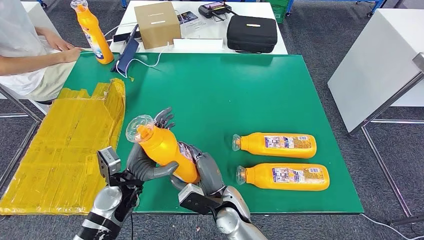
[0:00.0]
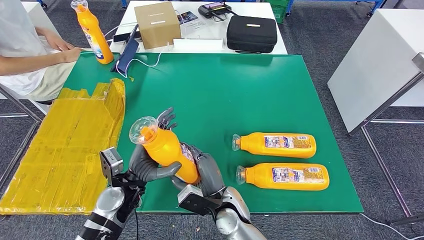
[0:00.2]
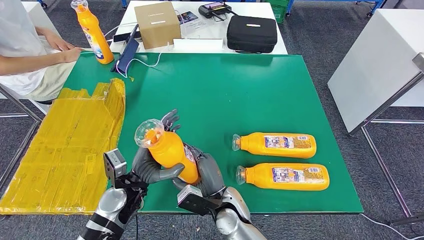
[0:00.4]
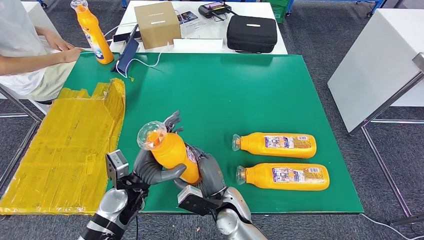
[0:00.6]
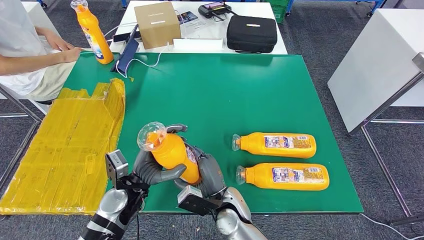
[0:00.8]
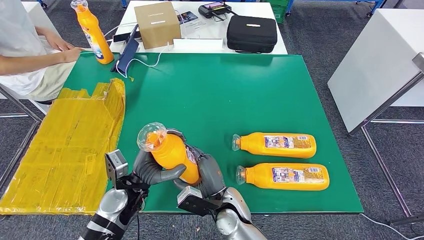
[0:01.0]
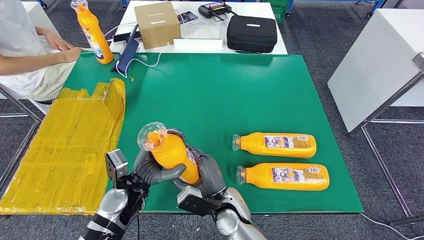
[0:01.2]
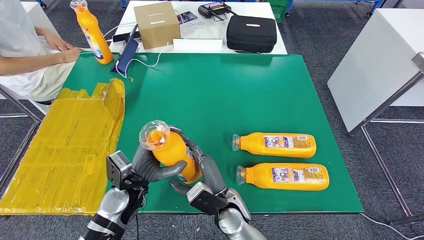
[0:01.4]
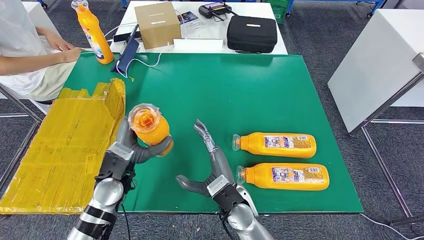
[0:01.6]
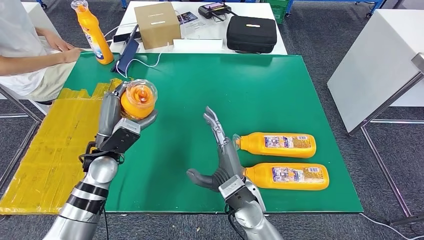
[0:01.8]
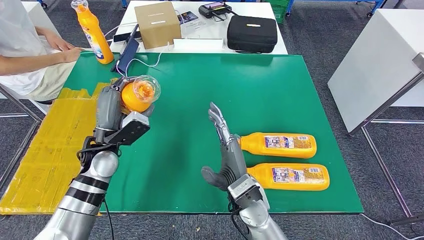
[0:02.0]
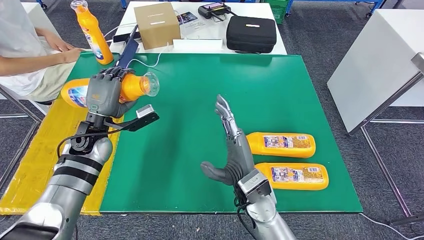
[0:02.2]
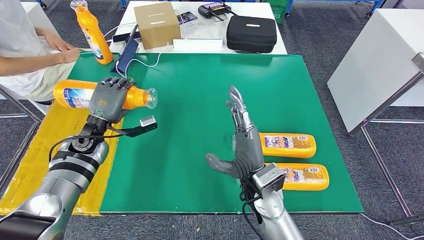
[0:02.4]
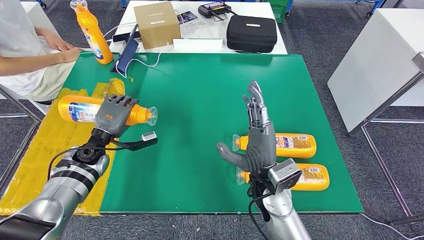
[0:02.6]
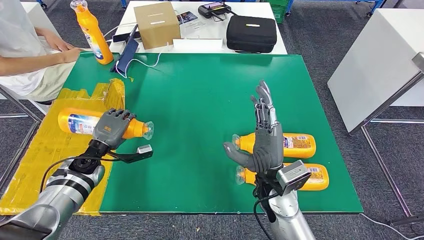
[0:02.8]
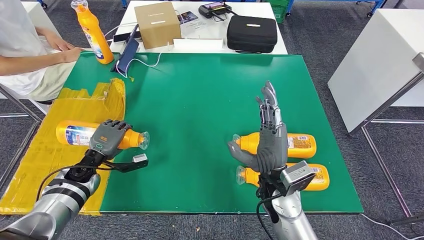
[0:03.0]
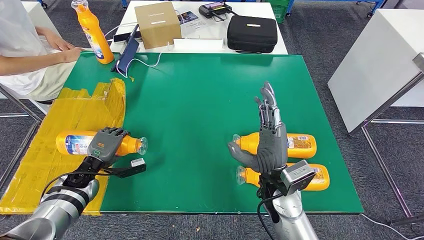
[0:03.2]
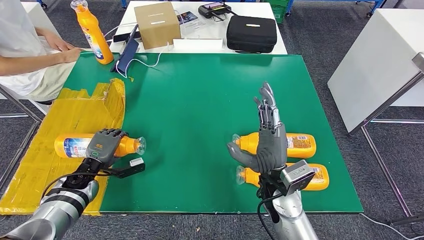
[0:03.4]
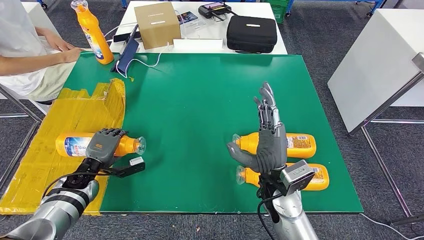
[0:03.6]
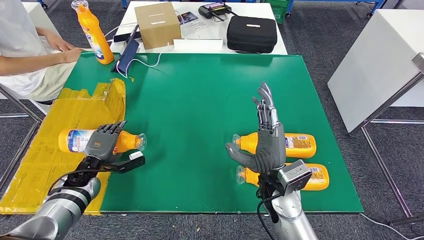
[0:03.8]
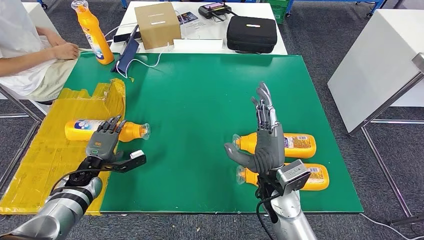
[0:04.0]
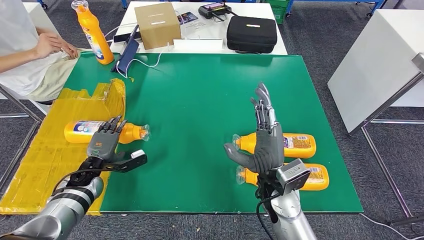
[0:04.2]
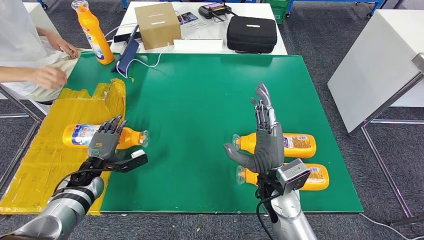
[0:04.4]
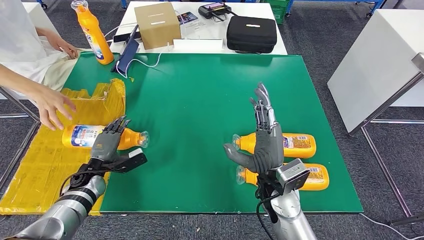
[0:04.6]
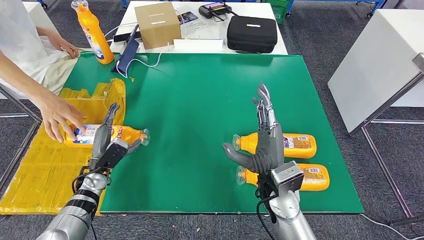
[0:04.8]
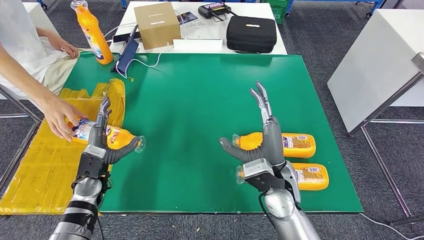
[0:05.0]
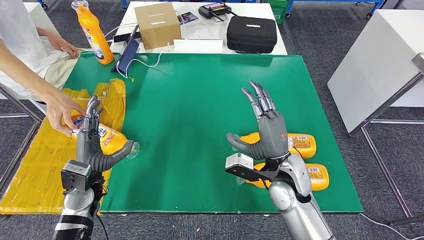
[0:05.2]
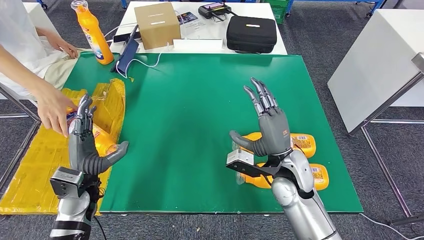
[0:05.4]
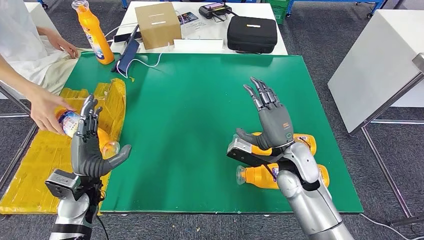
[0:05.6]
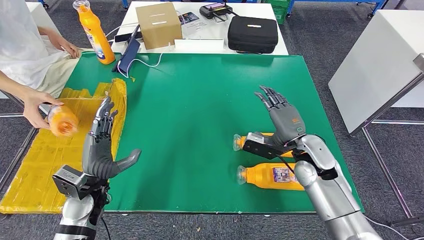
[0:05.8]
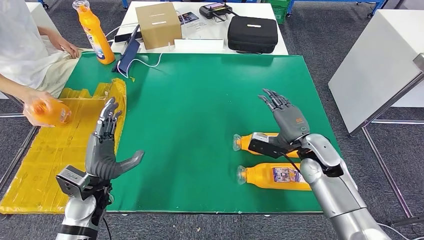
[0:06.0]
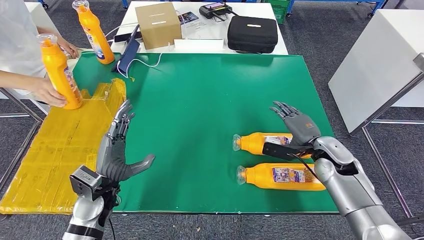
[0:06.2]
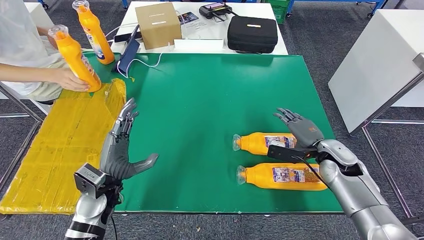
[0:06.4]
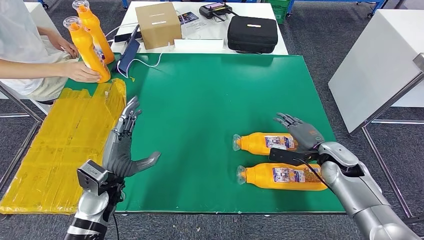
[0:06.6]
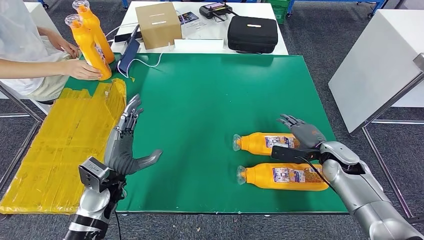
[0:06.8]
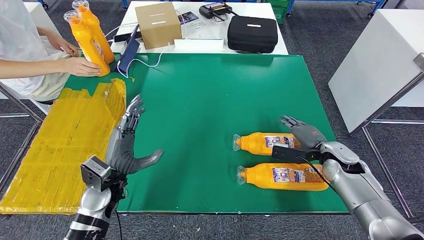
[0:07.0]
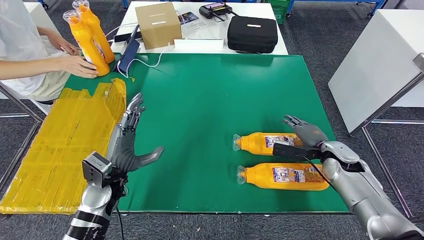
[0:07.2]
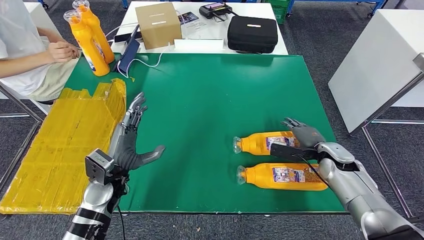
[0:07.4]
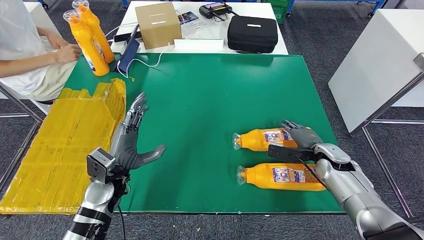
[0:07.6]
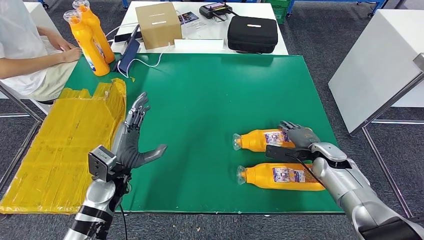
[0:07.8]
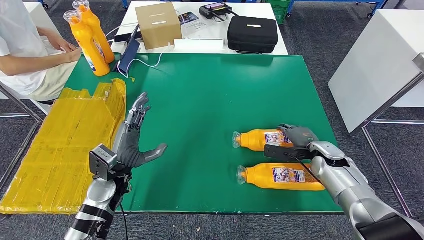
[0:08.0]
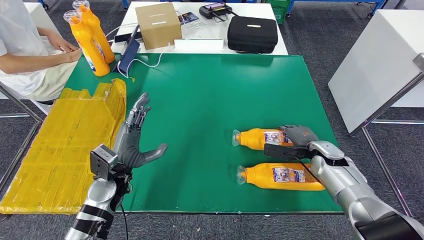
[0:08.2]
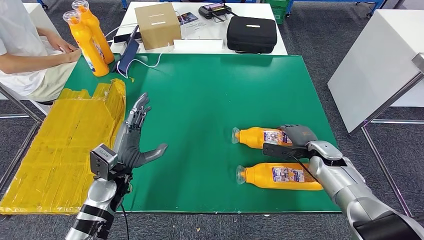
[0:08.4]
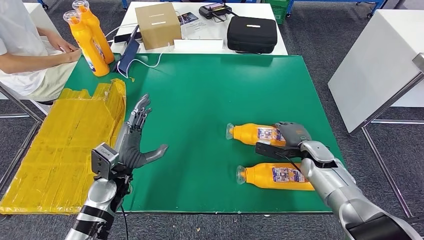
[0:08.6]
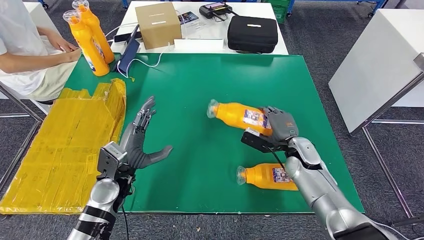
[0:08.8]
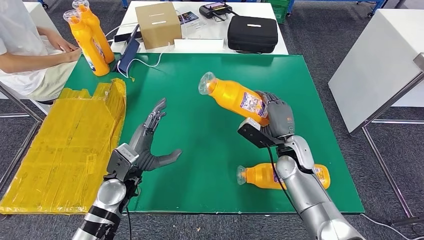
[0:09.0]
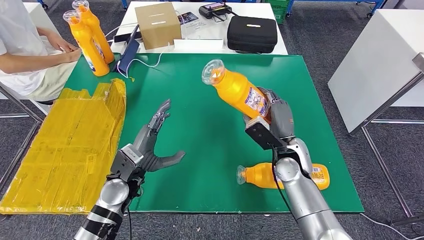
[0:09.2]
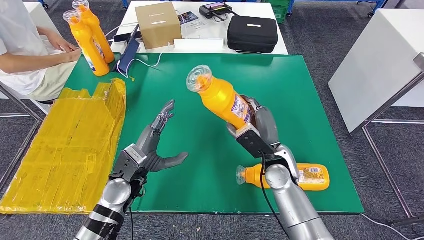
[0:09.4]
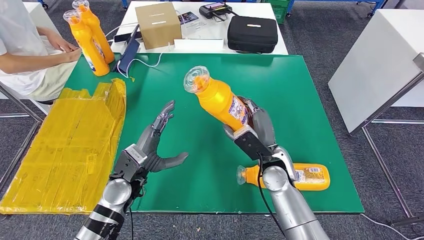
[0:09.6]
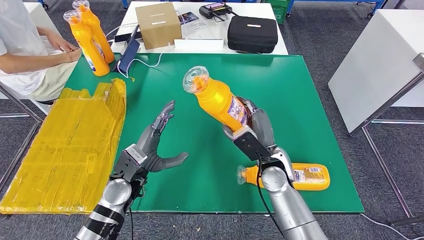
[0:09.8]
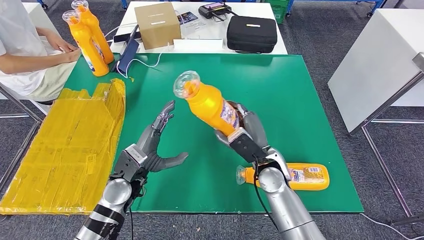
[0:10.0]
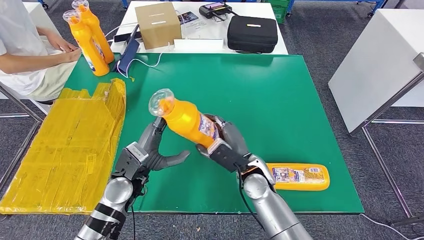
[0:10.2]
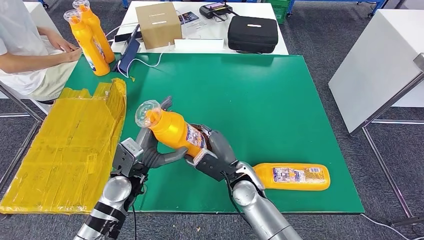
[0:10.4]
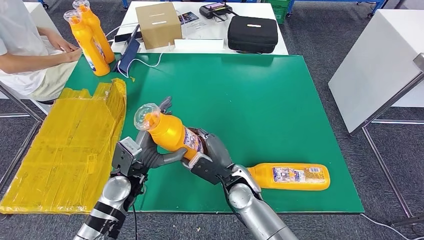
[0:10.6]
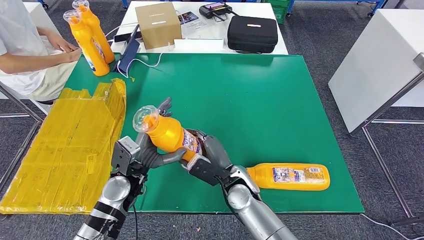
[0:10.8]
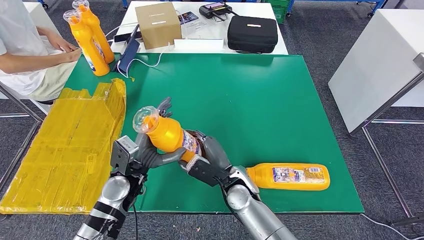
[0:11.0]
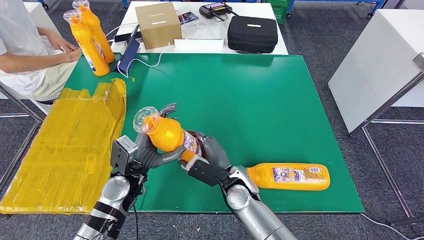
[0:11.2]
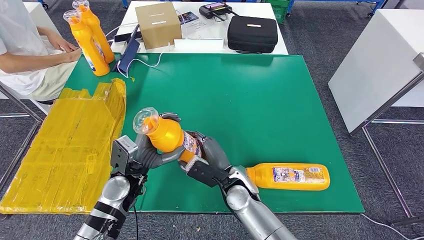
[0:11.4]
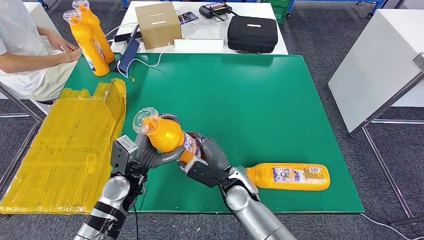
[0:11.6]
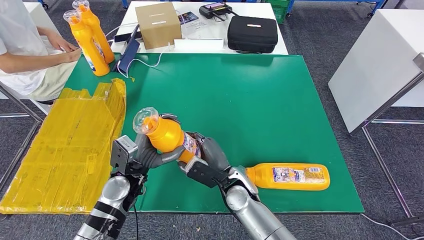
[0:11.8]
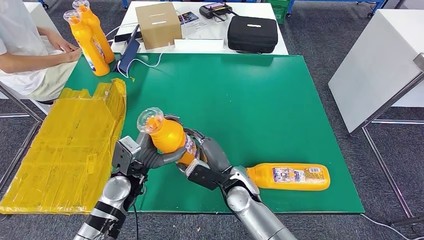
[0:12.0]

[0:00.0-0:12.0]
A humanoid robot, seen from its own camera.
Step, 0:01.2 to 0:04.8: Flip the fast-moving consumer goods bottle to the front side.
Step, 0:05.0 to 0:11.8: Pick up the fast-moving consumer goods bottle from the table.
0:01.6 to 0:03.0: The left hand travels to the left, downward and forward by approximately 15 cm. Meanwhile the right hand is displaced to the right and upward by some 10 cm.
0:03.0 to 0:04.4: The hands make only small movements.
0:07.6 to 0:09.0: The right hand moves to the left, approximately 15 cm.
0:09.0 to 0:10.4: The right hand goes roughly 15 cm to the left and backward.
0:10.4 to 0:12.0: The hands stay close to where they were, moving slightly.

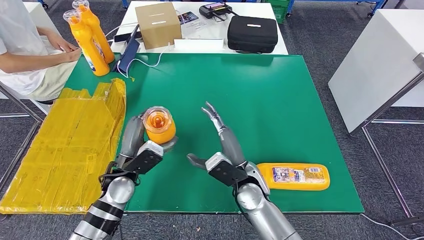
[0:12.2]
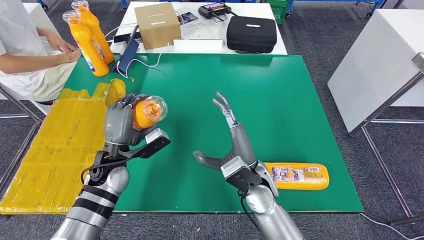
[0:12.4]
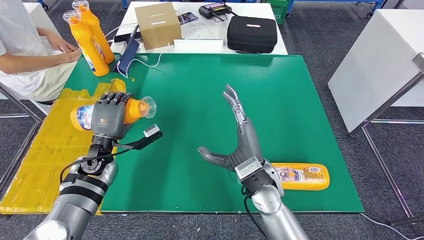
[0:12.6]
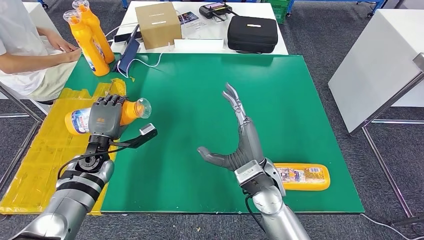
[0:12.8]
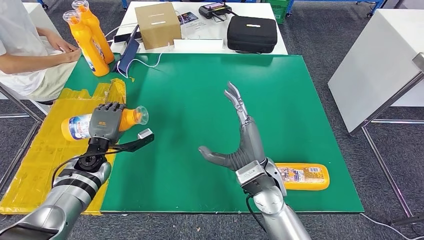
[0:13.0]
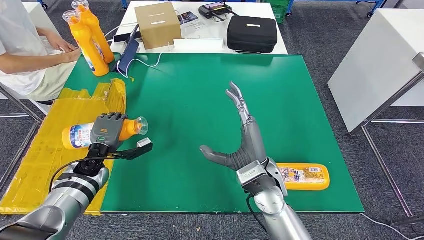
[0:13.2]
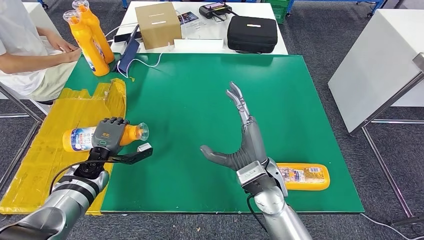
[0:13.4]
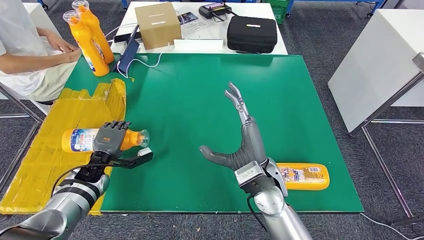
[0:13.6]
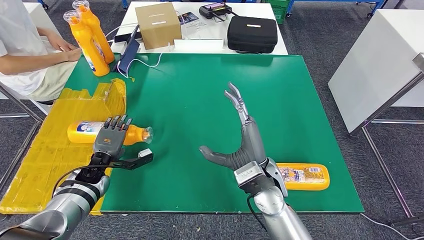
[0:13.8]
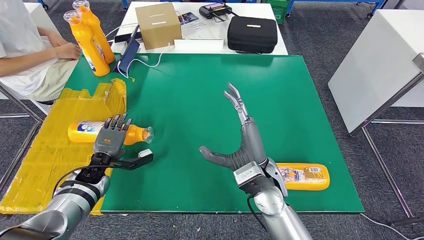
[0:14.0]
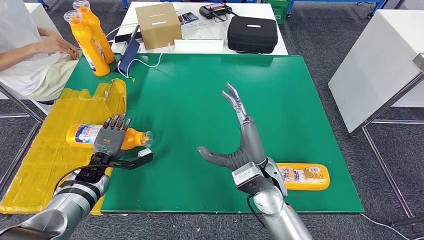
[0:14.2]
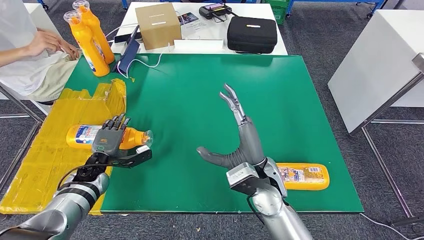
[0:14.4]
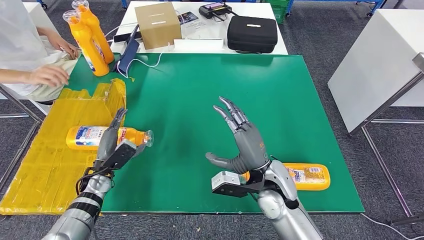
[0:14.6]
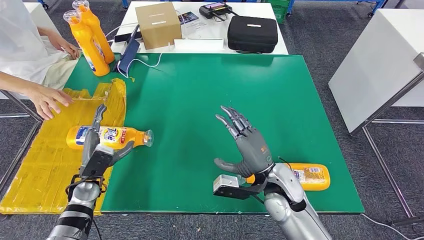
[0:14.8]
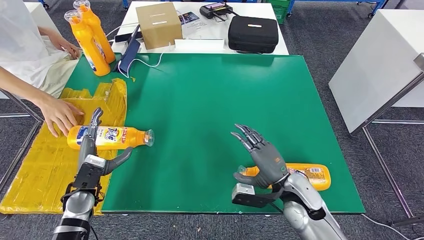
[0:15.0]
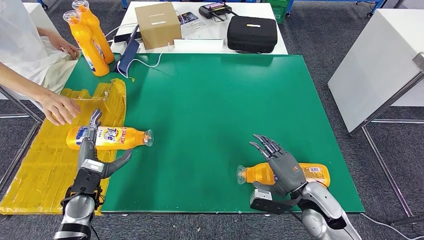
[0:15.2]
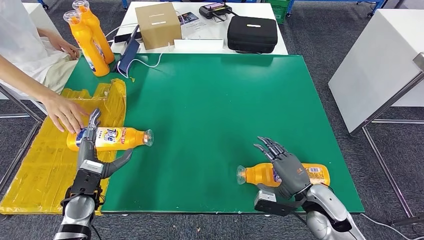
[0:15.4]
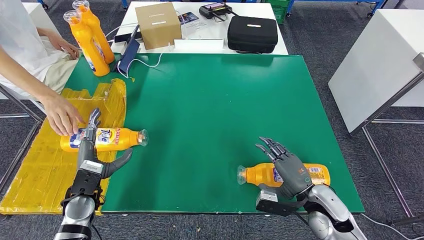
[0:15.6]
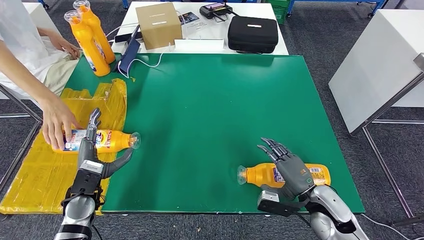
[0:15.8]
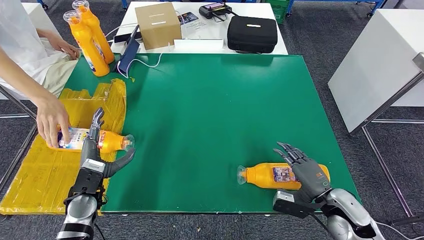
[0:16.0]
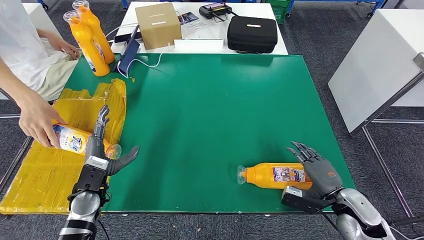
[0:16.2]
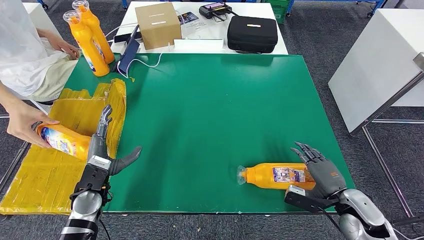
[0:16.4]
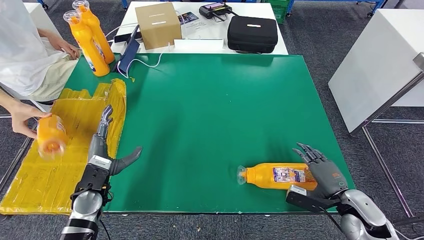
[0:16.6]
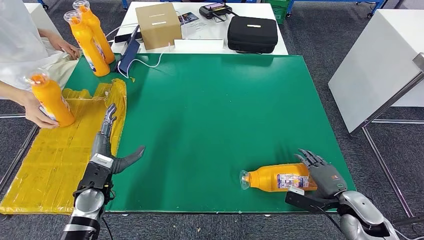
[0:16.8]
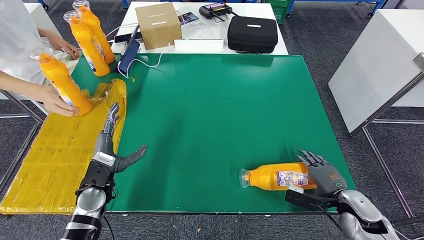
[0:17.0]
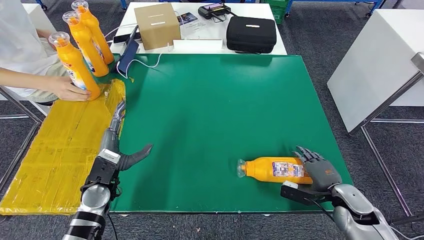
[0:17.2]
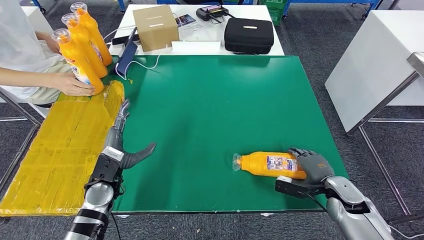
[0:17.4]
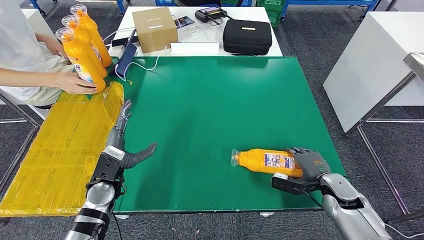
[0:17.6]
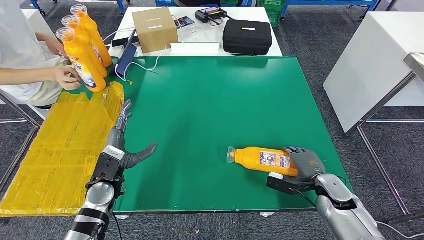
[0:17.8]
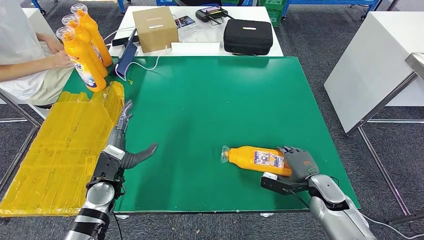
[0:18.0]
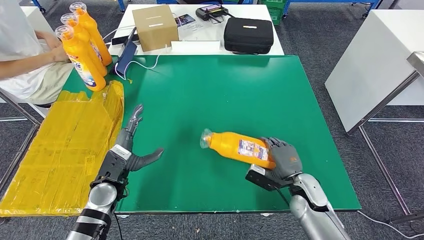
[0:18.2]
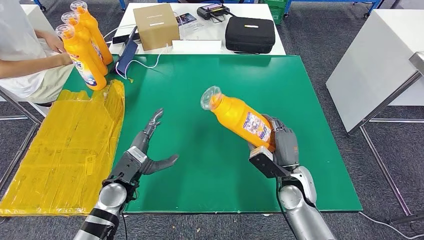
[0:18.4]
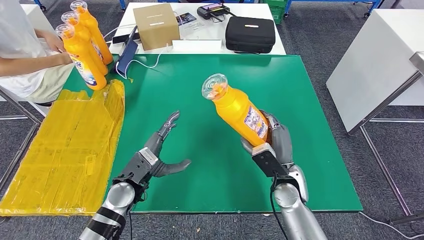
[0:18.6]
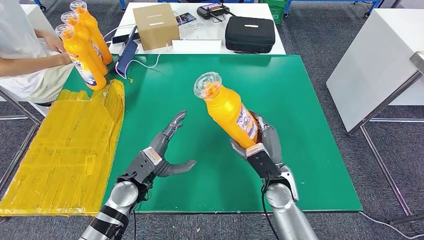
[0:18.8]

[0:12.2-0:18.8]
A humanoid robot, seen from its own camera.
Step, 0:12.2 to 0:14.8: Flip the fast-moving consumer goods bottle to the front side.
0:12.2 to 0:13.8: The right hand goes some 5 cm upward, while the left hand goes roughly 15 cm to the left, downward and forward.
0:13.8 to 0:15.4: The right hand travels to the right and downward by approximately 20 cm; the left hand heads backward, covering roughly 10 cm.
0:15.4 to 0:17.2: The right hand travels to the right by about 10 cm.
